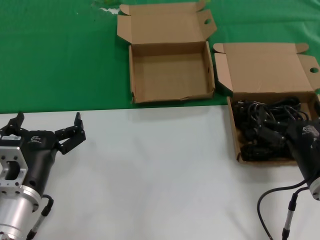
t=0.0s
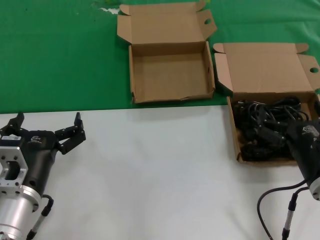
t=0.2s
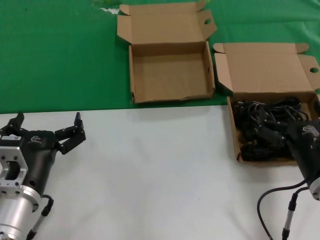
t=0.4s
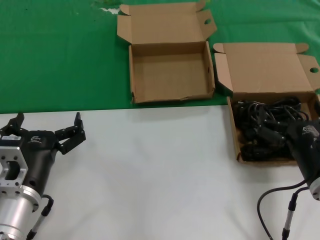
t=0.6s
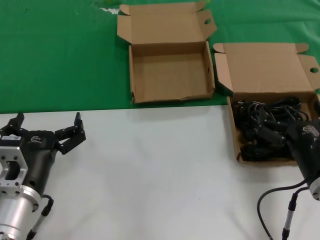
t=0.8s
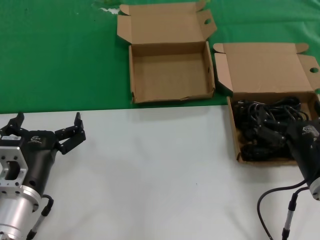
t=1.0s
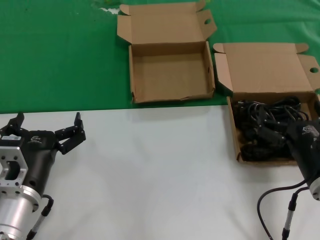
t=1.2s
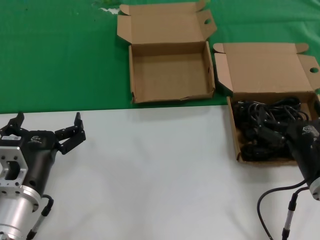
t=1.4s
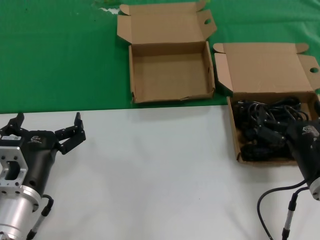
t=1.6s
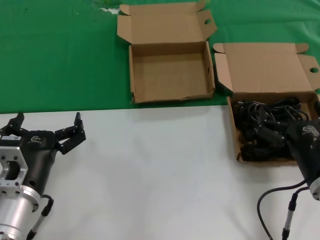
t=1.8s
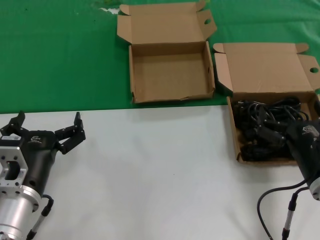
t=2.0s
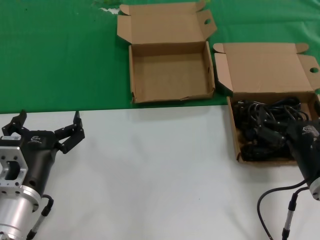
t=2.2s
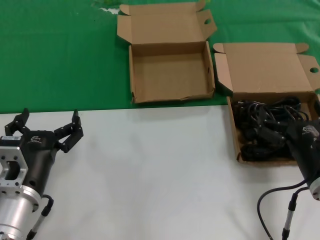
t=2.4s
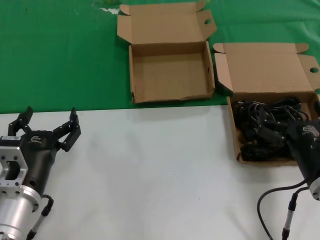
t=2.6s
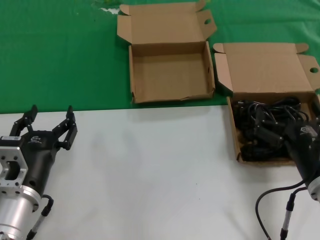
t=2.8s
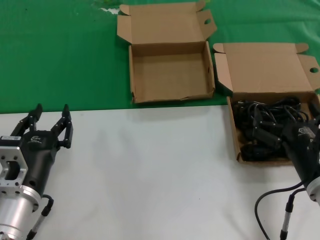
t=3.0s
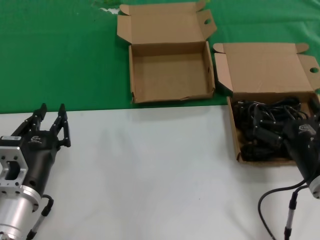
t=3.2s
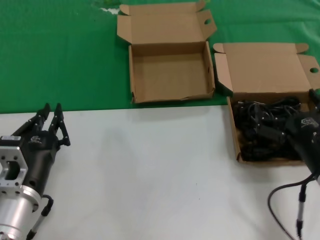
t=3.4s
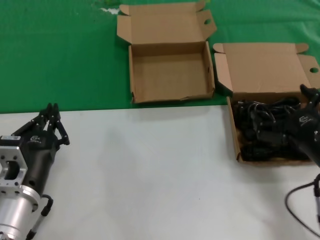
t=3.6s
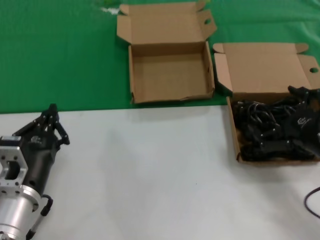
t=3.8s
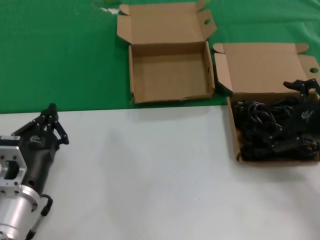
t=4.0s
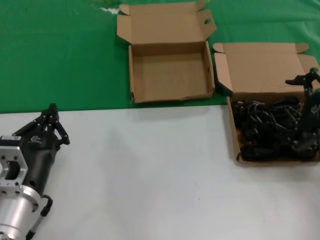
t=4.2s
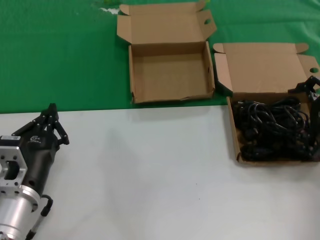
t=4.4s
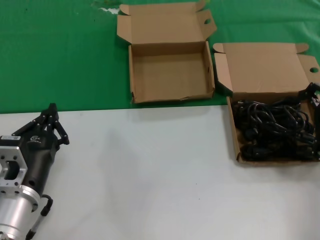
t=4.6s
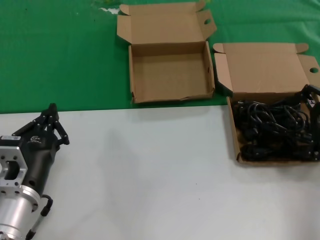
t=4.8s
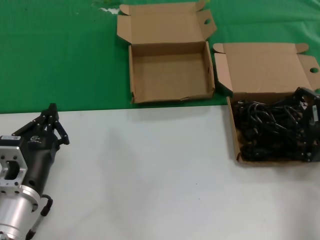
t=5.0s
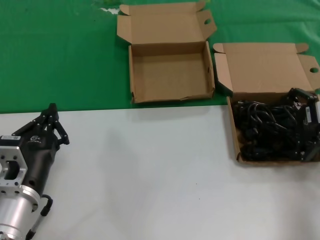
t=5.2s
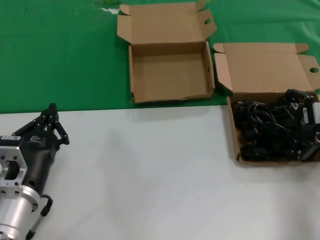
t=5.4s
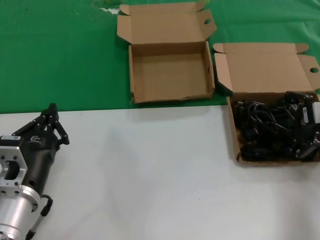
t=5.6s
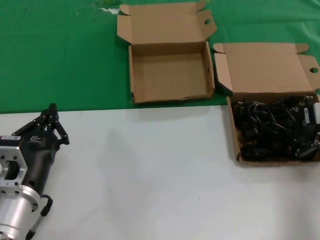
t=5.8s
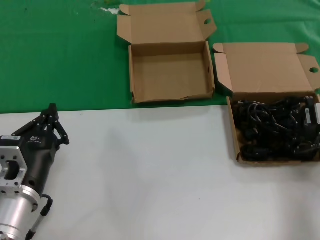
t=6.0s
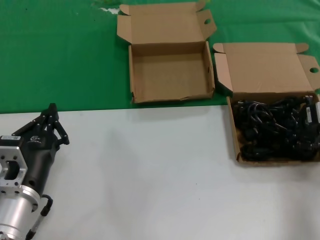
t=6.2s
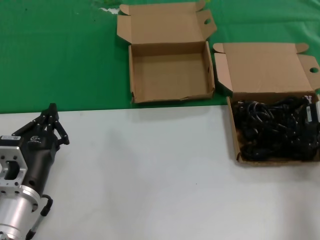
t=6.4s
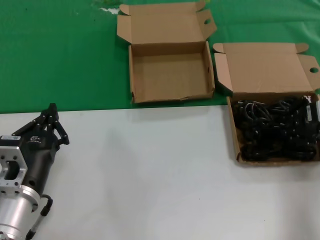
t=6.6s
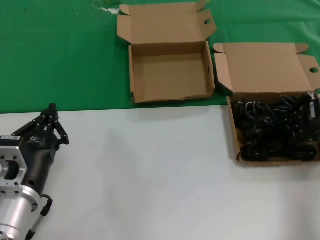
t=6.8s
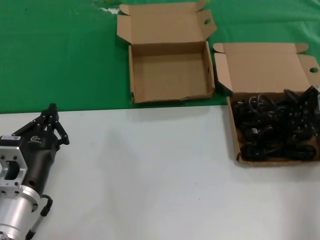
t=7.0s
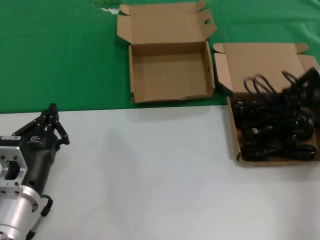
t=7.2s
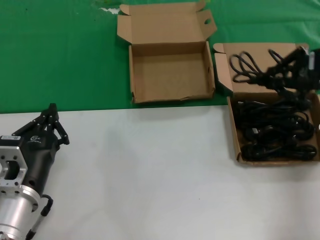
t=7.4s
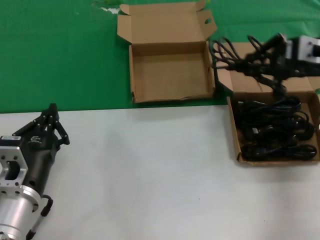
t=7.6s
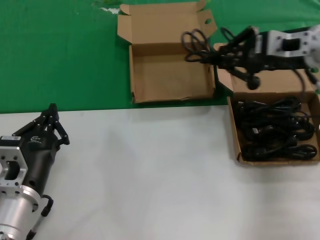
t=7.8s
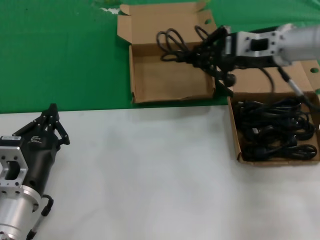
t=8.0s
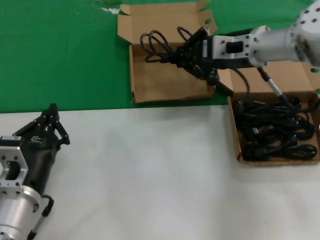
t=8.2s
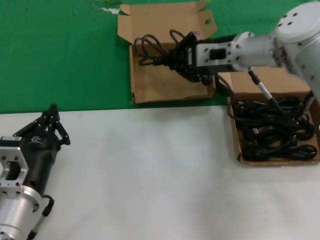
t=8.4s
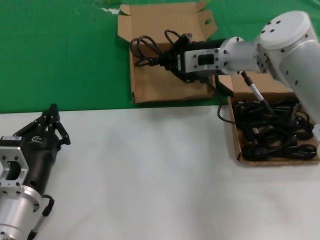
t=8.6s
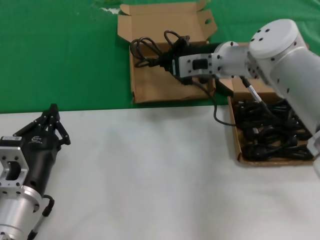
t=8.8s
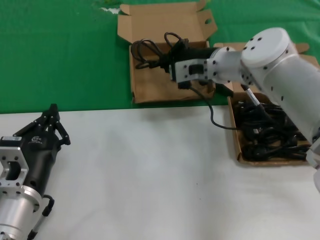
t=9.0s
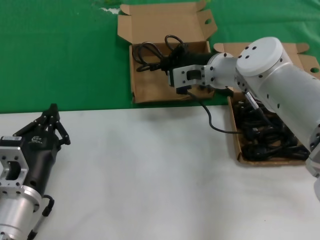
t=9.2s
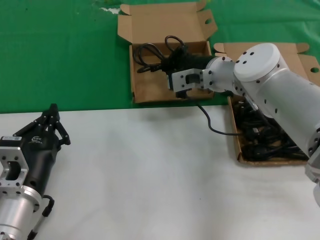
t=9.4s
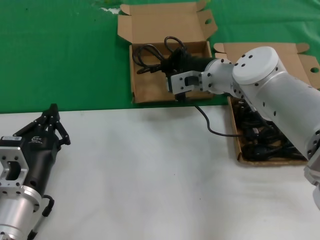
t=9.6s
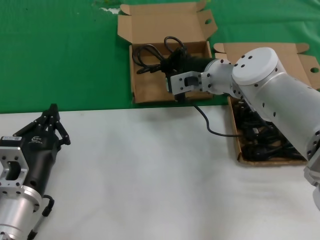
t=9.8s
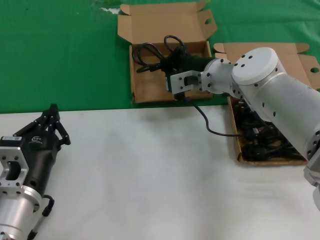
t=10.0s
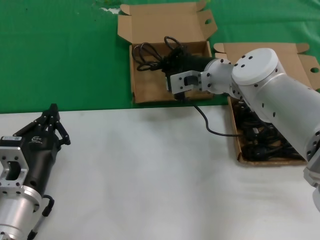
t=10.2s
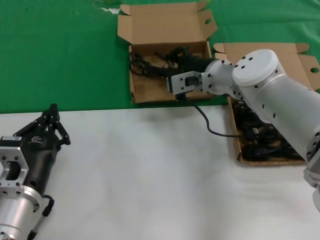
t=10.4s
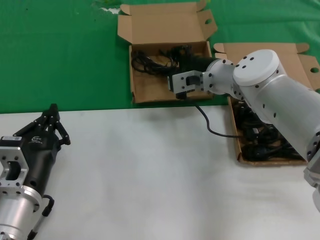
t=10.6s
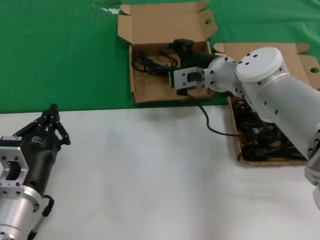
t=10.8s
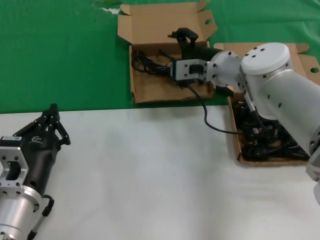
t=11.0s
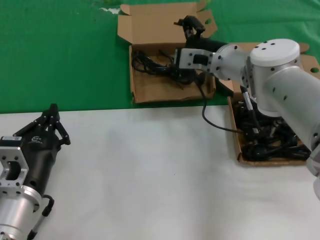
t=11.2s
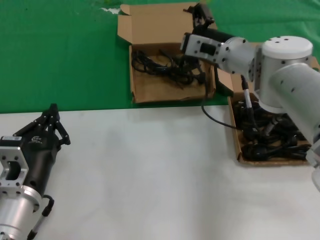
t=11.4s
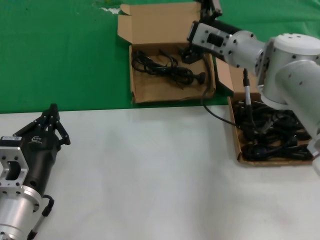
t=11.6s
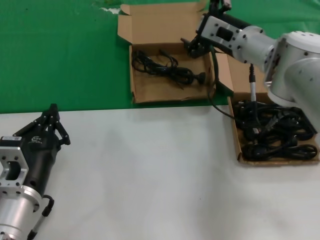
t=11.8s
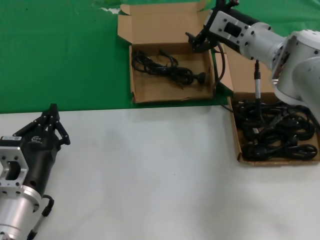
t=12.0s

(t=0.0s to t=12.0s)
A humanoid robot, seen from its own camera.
Task of the whole recording: take the parts from the box containing them and put them into an empty box.
Step, t=0.0s - t=6.6s: Grasp the data cable.
Step, t=6.8s - t=10.4s: Place the data cable in the another box.
t=0.0s - t=3.0s: Neither hand changes place.
t=3.0s - t=4.4s: The right hand is displaced upward, to the right and forward by about 25 cm.
t=4.4s - t=6.0s: The right hand shifts by some 5 cm.
t=6.0s - t=7.6s: The right hand shifts about 10 cm upward and to the left.
t=7.6s - t=9.0s: The right hand is displaced to the left and downward by some 20 cm.
t=9.0s - t=10.4s: The hands make only small movements.
t=10.4s - t=12.0s: The right hand travels to the right by roughly 5 cm.

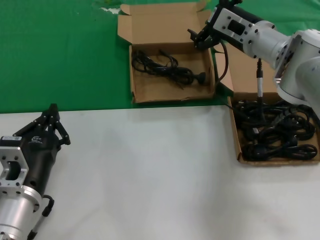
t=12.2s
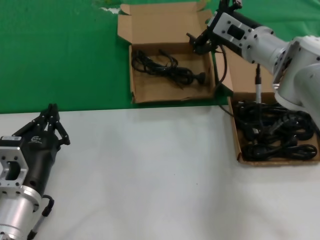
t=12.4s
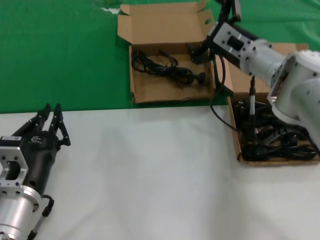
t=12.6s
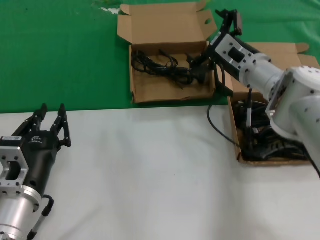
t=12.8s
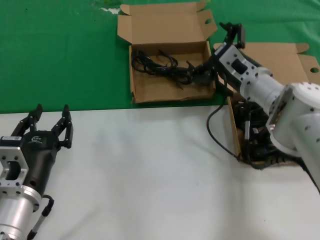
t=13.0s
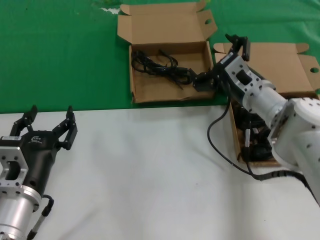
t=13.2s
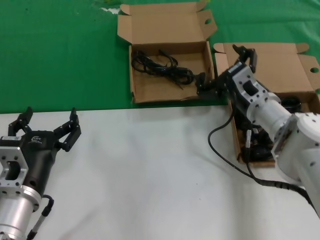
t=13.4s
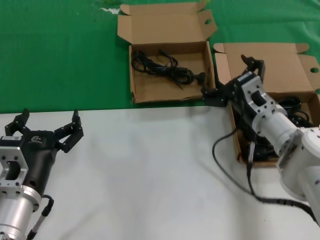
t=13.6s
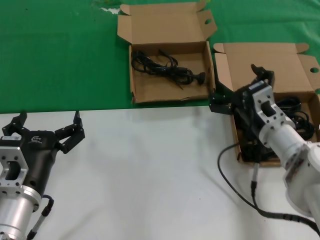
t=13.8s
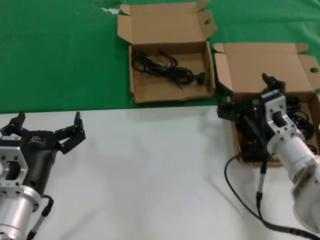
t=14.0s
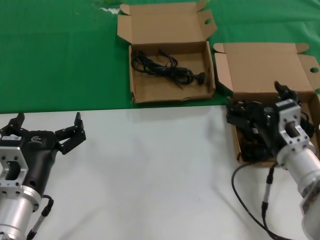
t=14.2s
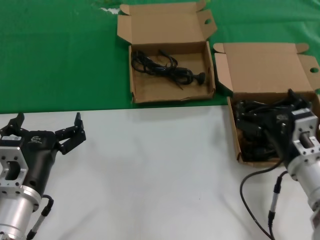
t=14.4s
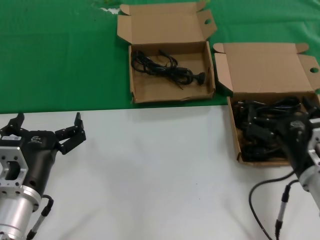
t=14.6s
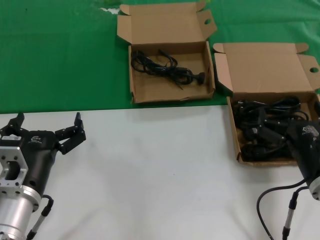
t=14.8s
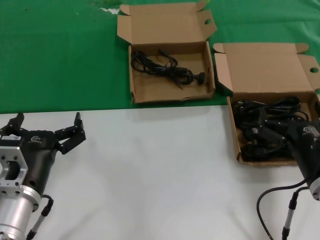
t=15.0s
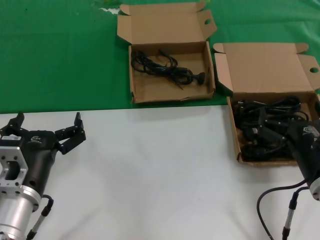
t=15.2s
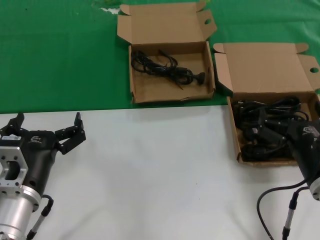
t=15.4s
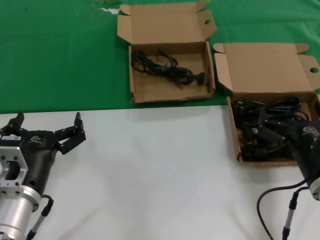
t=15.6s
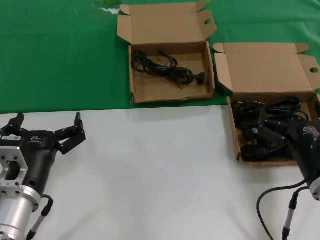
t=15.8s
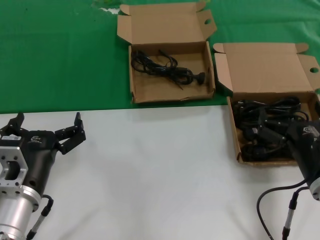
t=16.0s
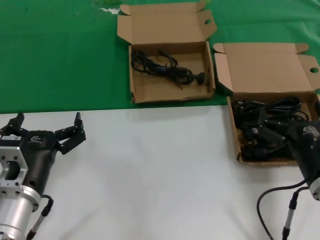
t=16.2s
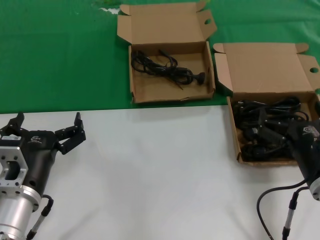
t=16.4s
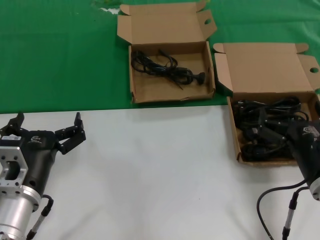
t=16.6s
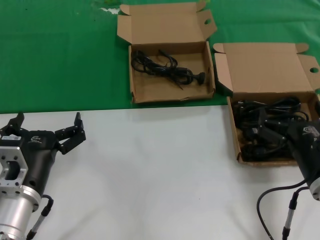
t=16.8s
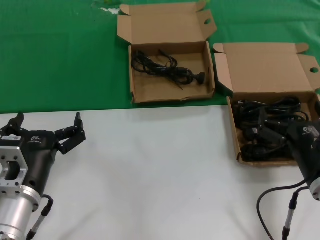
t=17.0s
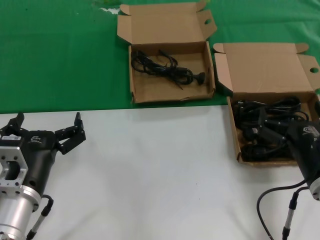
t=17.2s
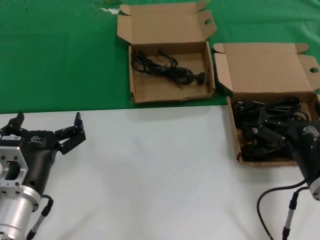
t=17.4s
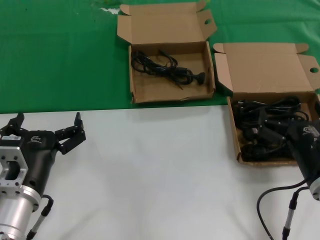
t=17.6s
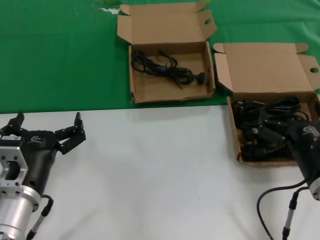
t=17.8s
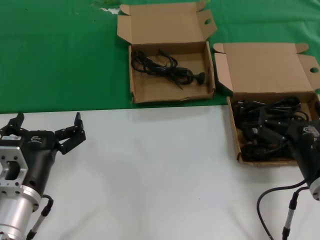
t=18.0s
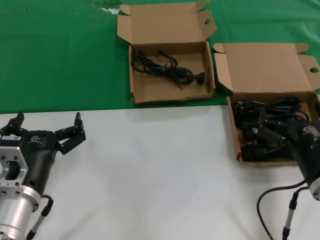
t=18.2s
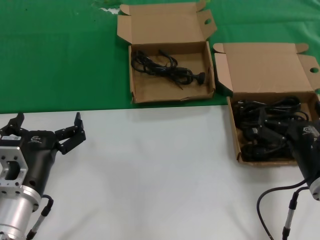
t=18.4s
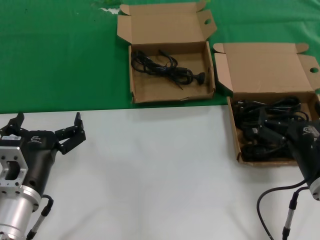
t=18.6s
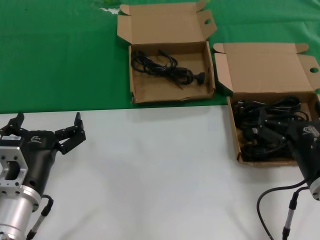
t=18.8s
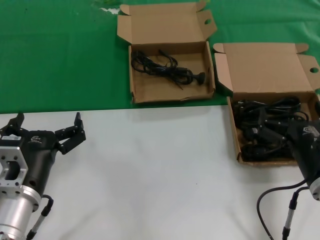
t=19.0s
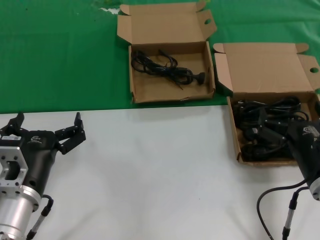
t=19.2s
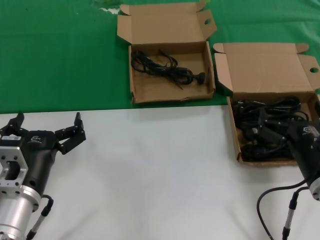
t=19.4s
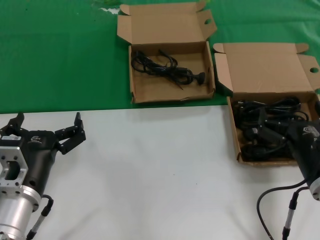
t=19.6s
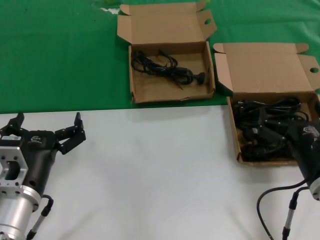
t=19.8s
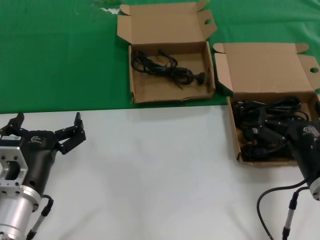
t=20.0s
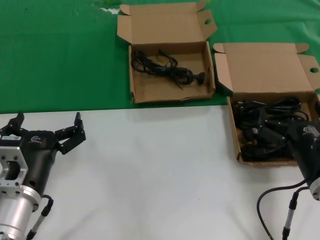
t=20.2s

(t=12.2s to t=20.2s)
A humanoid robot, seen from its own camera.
Task of the whole recording: take the parts from the box containing them and put them into an empty box.
t=12.2s - t=13.8s: The right hand goes about 20 cm downward and backward.
t=13.8s - t=15.4s: The right hand is displaced backward by approximately 15 cm.
t=15.4s - t=20.2s: Both hands stay about where they are.
